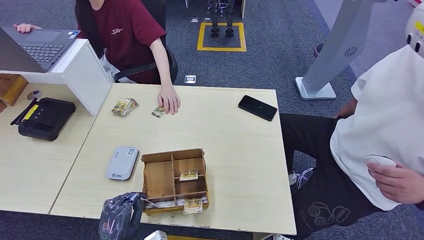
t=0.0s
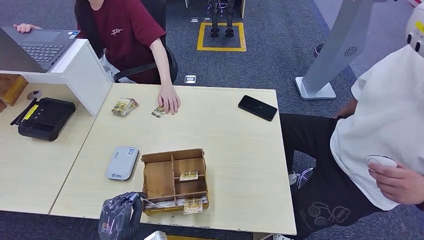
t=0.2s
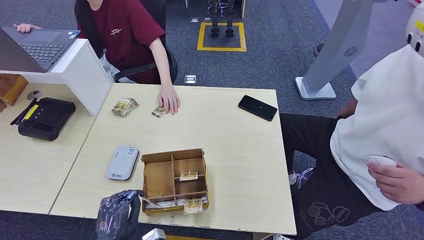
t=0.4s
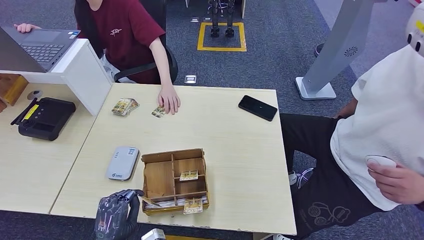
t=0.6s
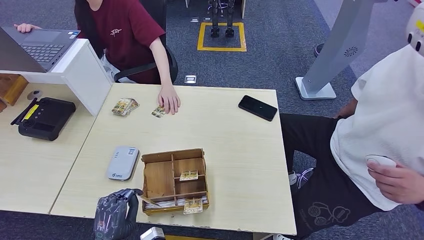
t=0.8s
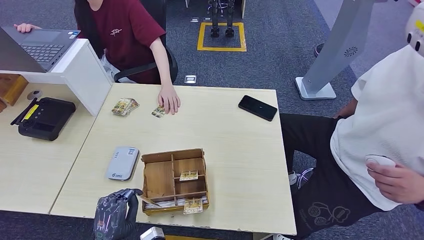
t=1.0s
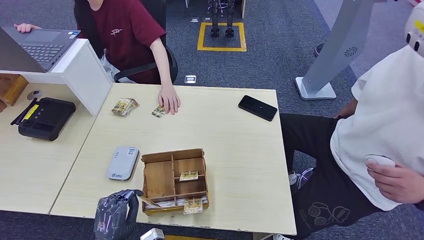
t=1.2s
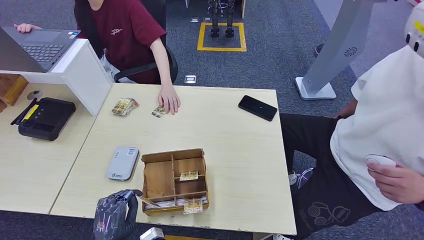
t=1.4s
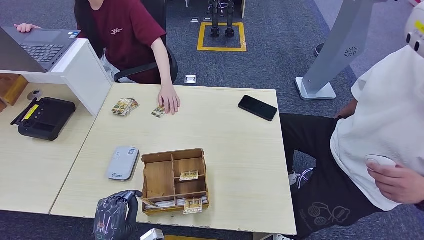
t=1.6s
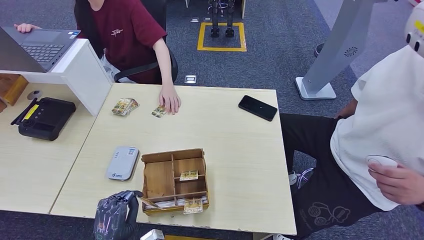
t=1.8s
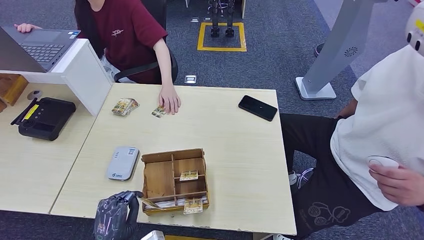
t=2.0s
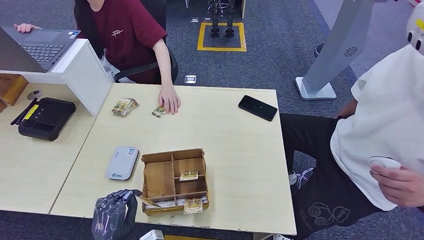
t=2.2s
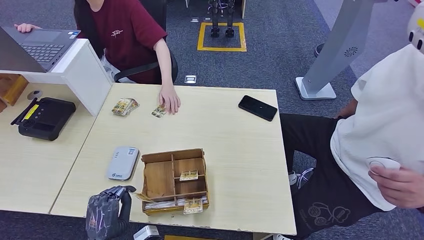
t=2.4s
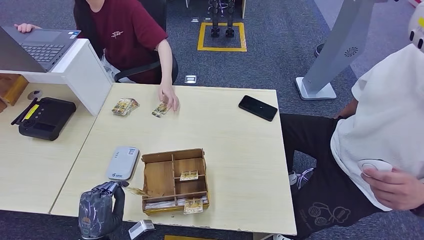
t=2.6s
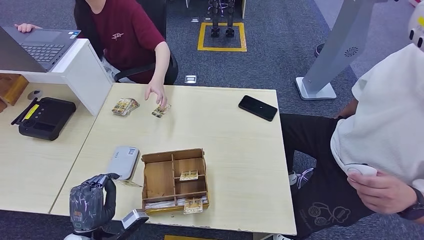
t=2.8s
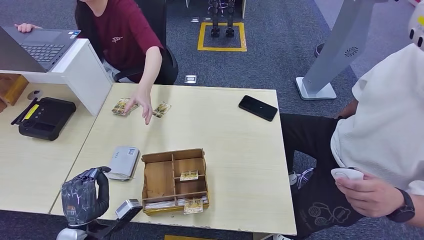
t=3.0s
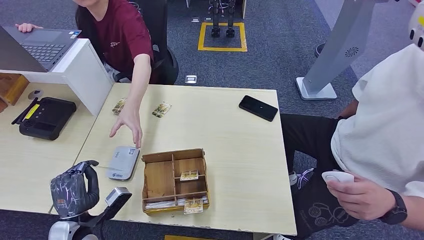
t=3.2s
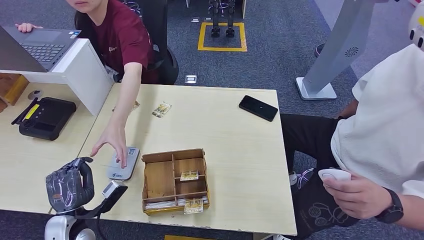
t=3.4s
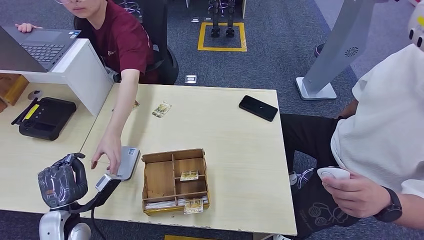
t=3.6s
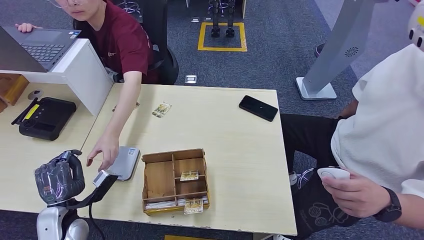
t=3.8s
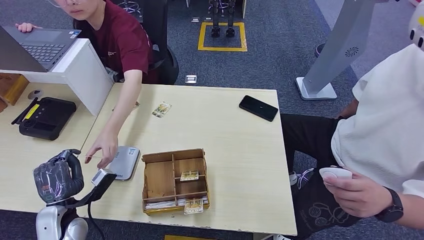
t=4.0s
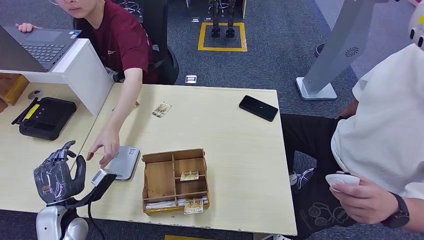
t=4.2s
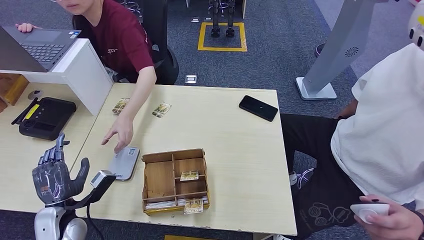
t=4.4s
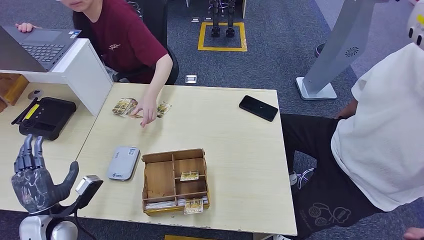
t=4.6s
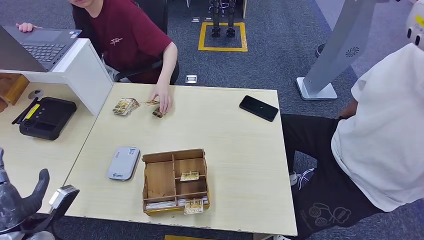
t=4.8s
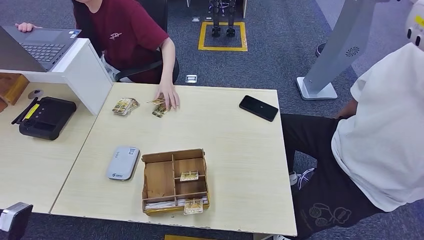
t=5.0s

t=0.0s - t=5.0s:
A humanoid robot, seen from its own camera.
Step, t=0.0s - t=2.8s: Pick up the room key from the key card box.
Step, t=3.0s - t=5.0s: Hand the room key to the person.
t=0.0s - t=1.6s: The hands stay close to where they were, moving slightly.
t=1.6s - t=3.4s: The left hand goes approximately 10 cm to the left and forward.
t=3.4s - t=5.0s: The left hand is displaced to the left and backward by some 15 cm.
